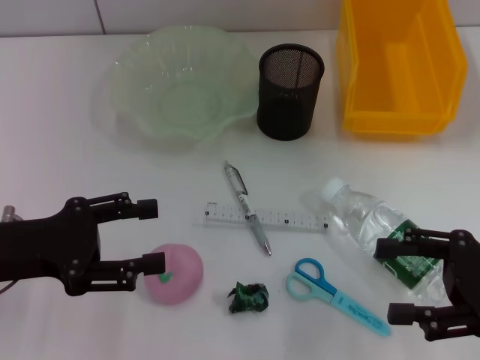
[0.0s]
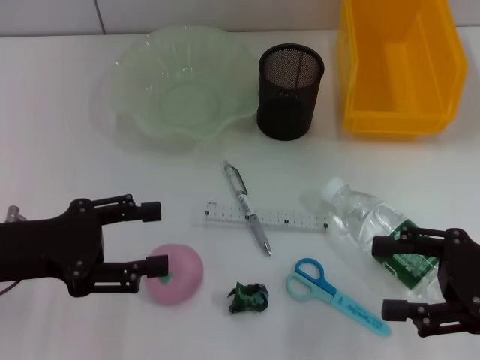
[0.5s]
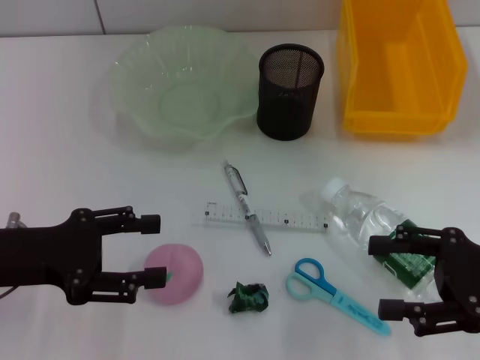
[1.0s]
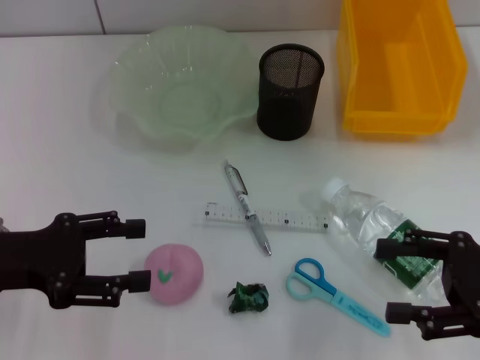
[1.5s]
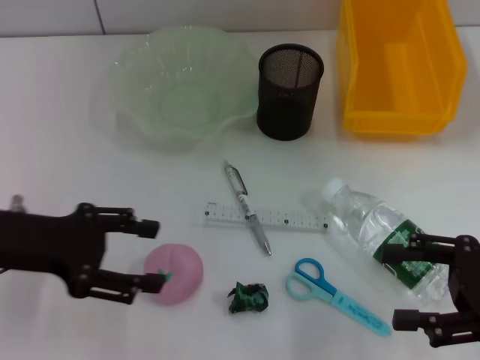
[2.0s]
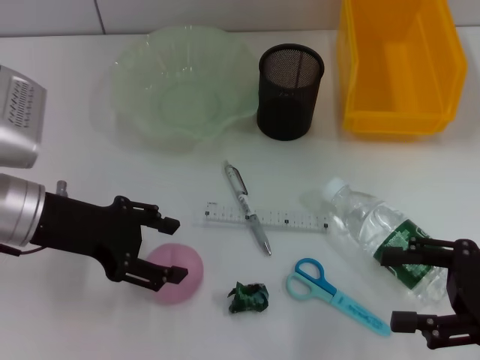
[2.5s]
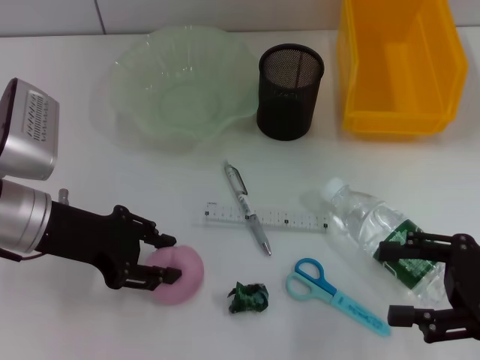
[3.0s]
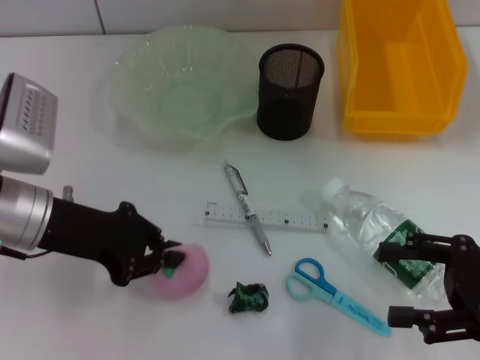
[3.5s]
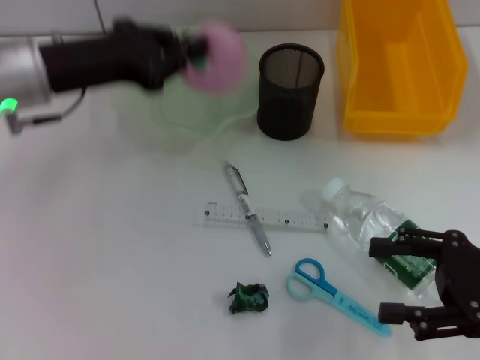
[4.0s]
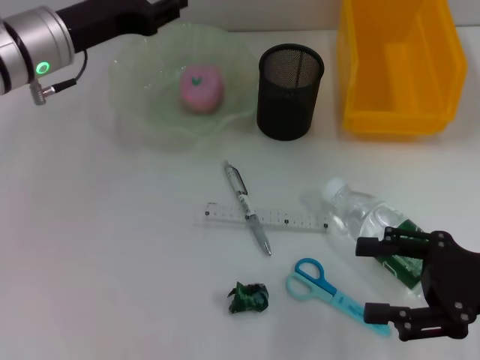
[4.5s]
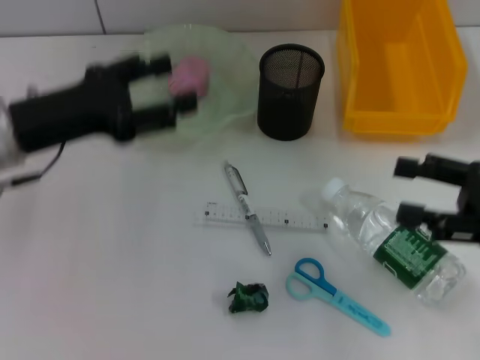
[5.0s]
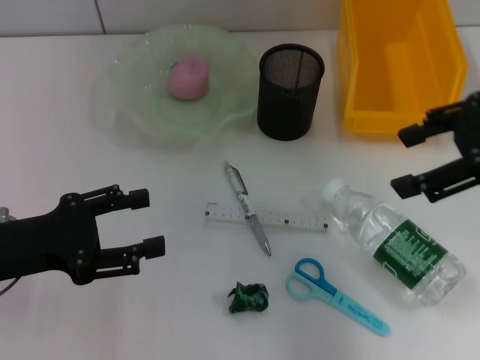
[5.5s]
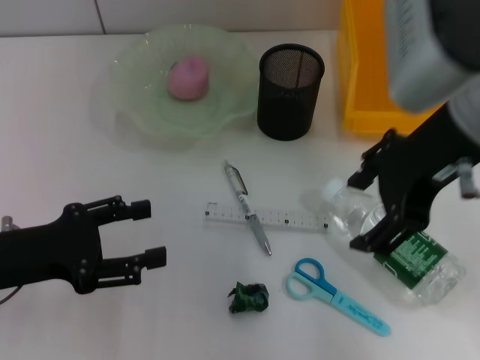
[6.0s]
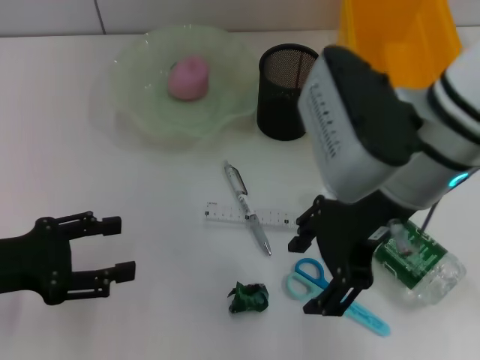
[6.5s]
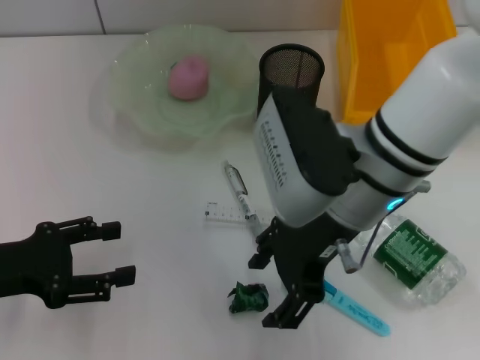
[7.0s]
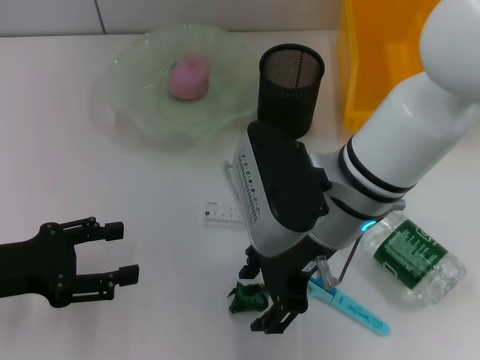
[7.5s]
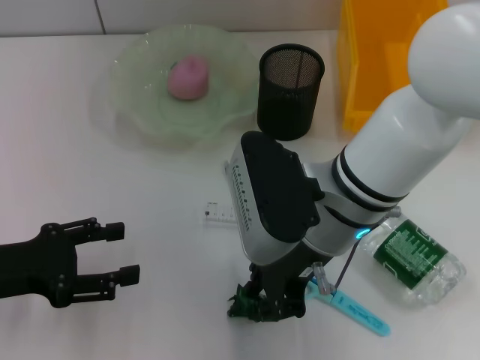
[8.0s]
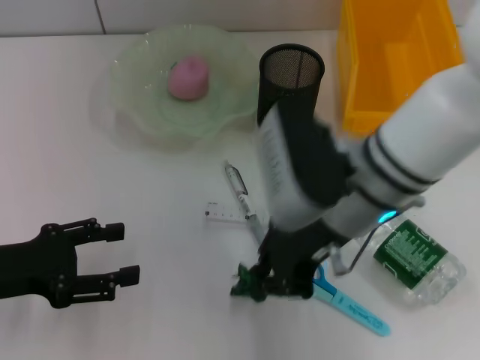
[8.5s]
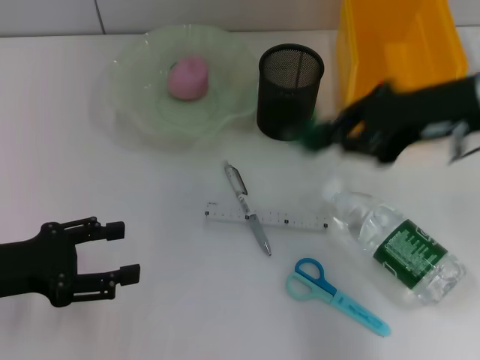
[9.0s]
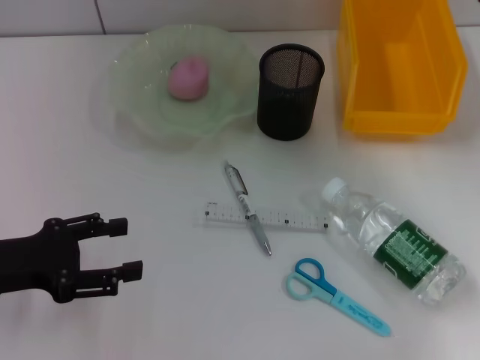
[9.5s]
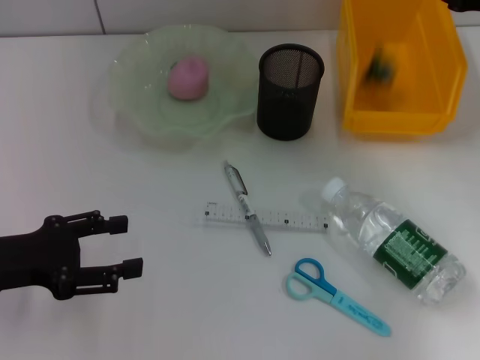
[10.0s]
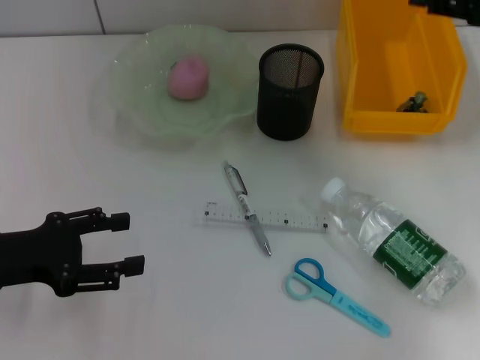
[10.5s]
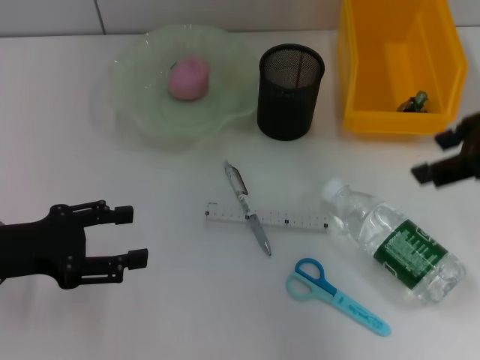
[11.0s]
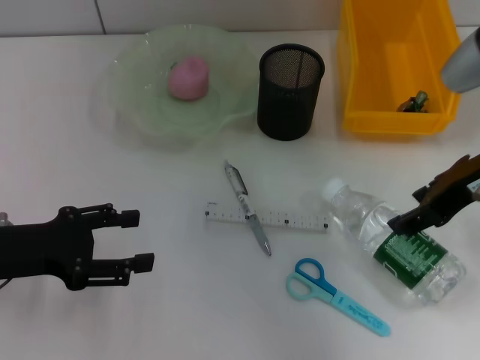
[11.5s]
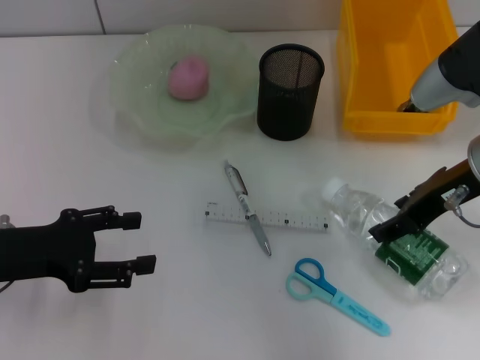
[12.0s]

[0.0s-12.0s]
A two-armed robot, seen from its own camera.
Step, 0.0s to 3.0s: Grab the peach with the left hand.
Step, 3.5s to 4.5s: Place the peach into the fruit bowl with the left hand.
Step, 5.0s to 8.0s: Grab the plastic with the right hand.
Step, 8.5s to 10.0s: Place the plastic into the trash can with the right hand.
0.0s to 2.0s: The grippers make only small movements.
2.0s to 4.0s: The left gripper is displaced forward and to the right by about 10 cm, and closes its fingers.
4.0s to 6.0s: The right gripper heads upward, to the left and forward, covering some 25 cm. Meanwhile the left gripper shifts about 15 cm backward, downward and to the left, and opens.
6.0s to 8.0s: The right gripper moves downward and to the left, approximately 15 cm, and closes up.
8.0s to 10.0s: The right gripper shifts approximately 25 cm to the right.
10.0s to 12.0s: The right gripper goes some 10 cm to the left and backward, and opens up.

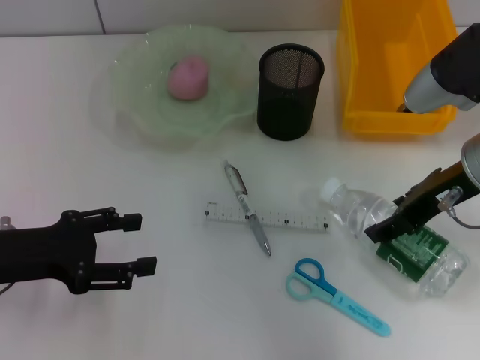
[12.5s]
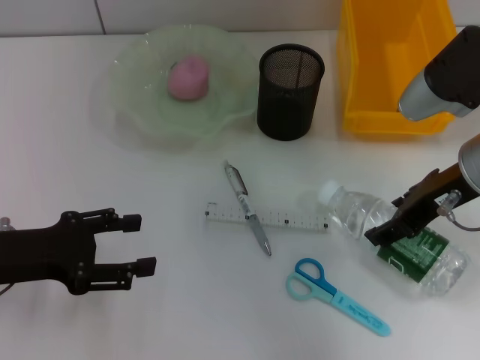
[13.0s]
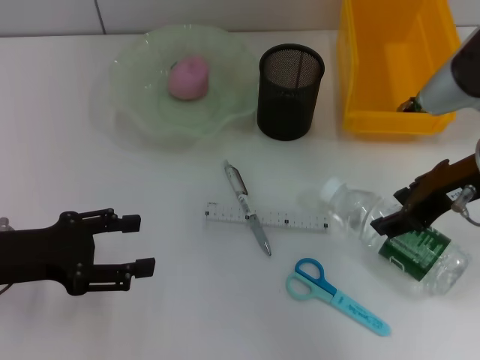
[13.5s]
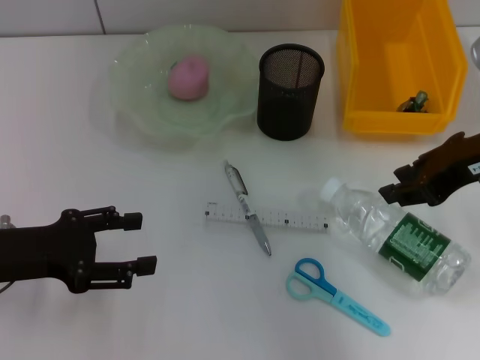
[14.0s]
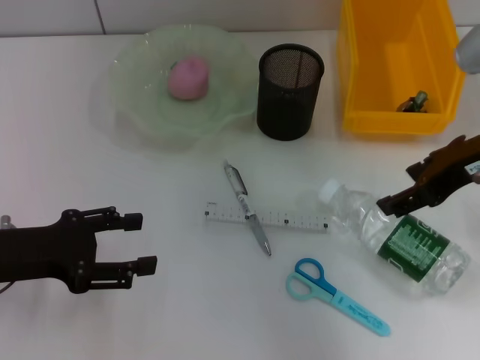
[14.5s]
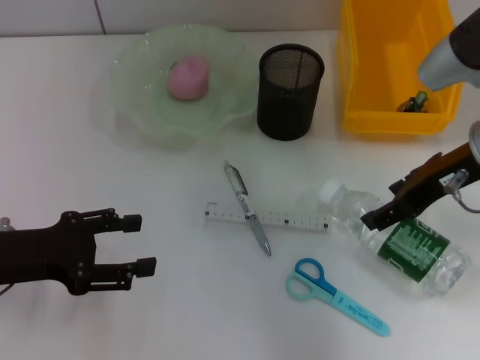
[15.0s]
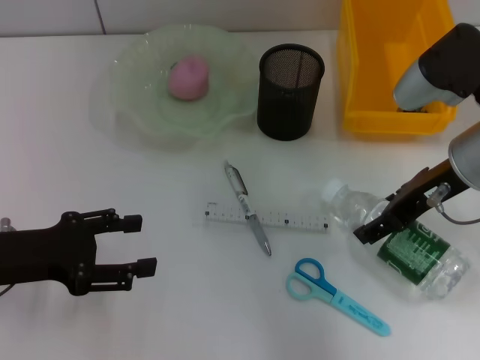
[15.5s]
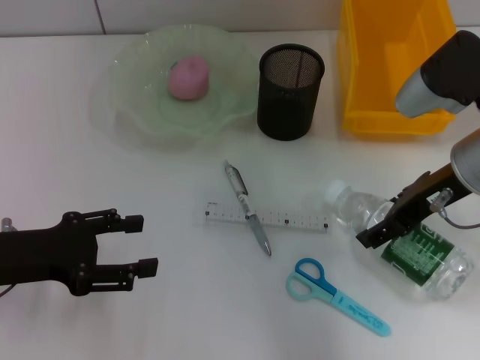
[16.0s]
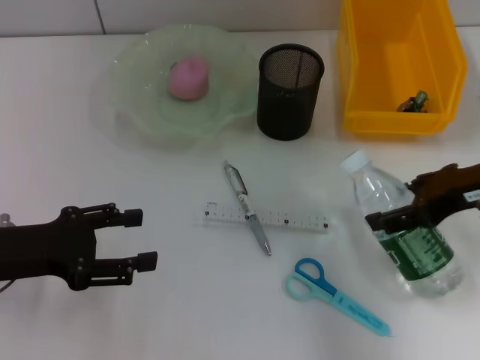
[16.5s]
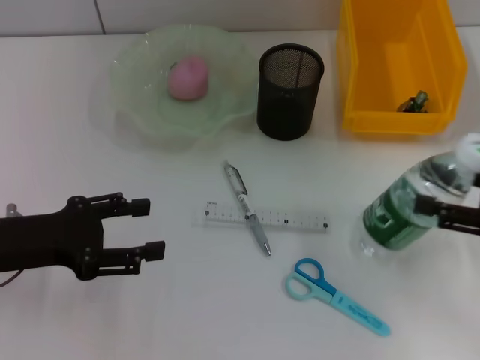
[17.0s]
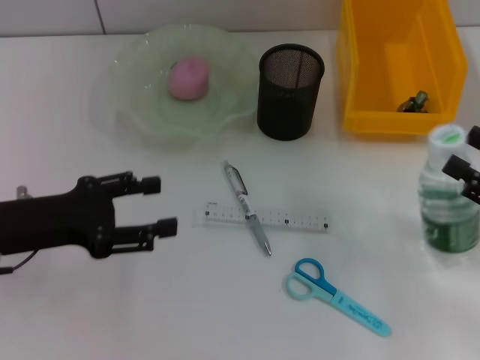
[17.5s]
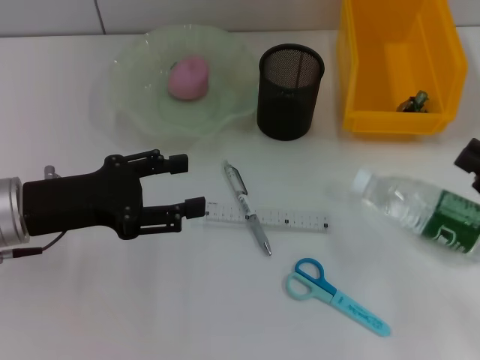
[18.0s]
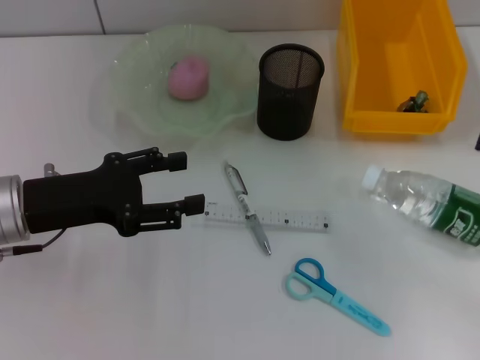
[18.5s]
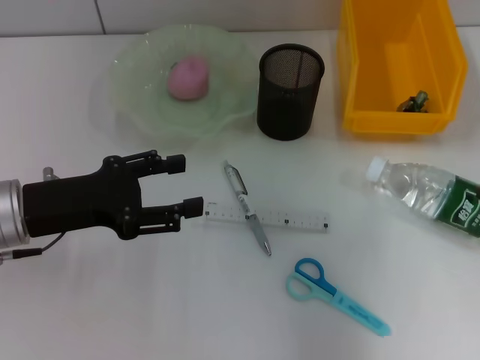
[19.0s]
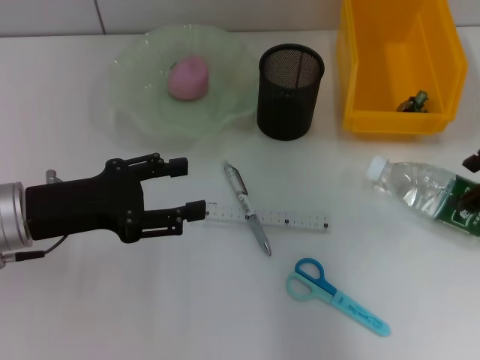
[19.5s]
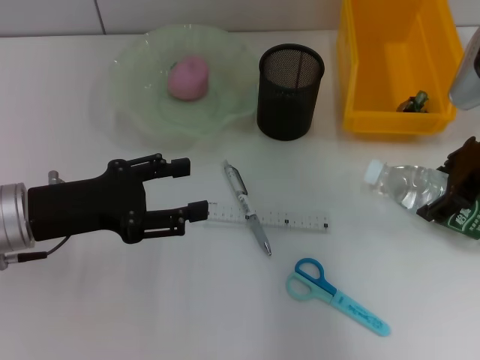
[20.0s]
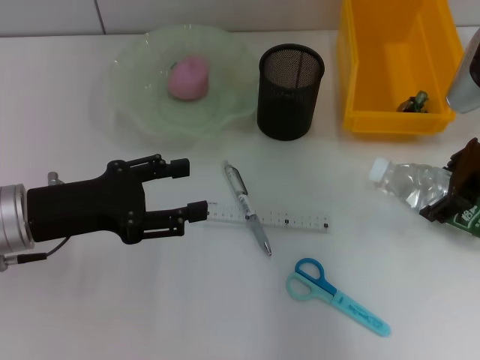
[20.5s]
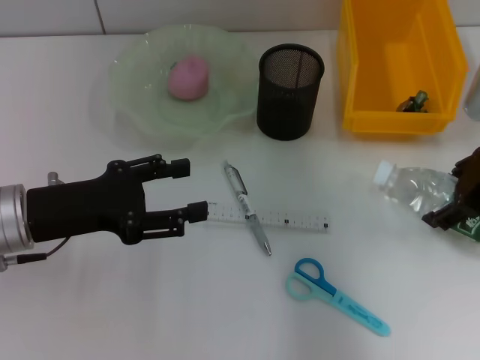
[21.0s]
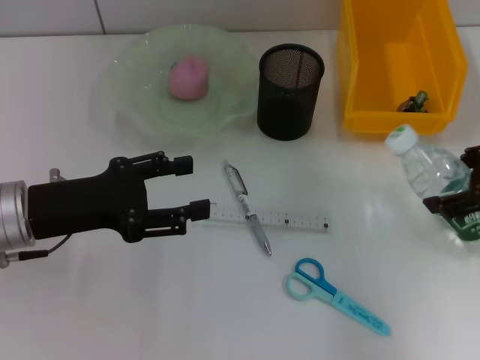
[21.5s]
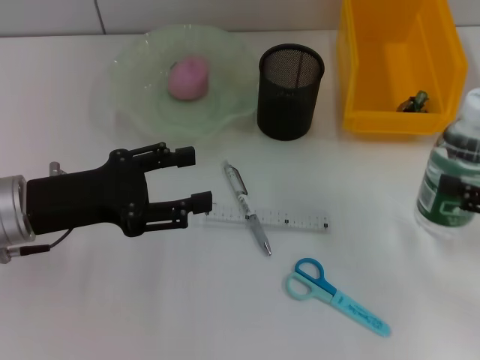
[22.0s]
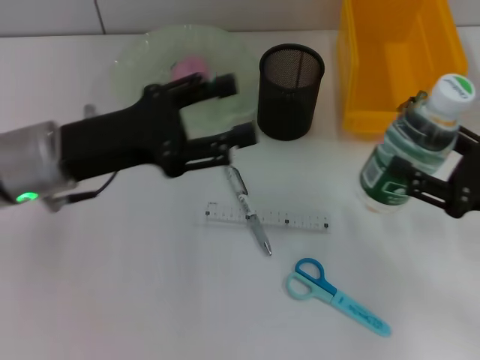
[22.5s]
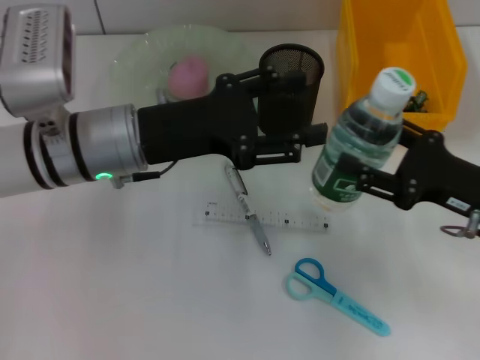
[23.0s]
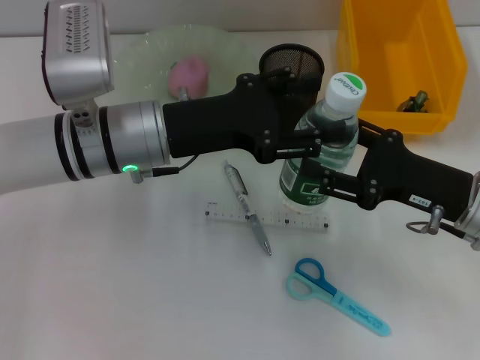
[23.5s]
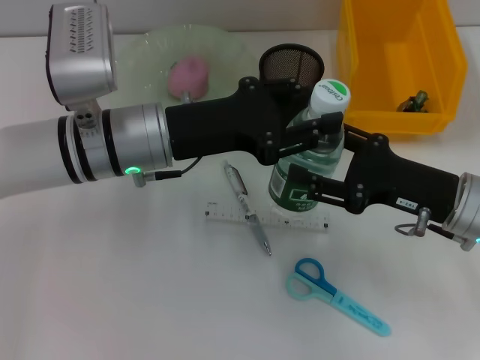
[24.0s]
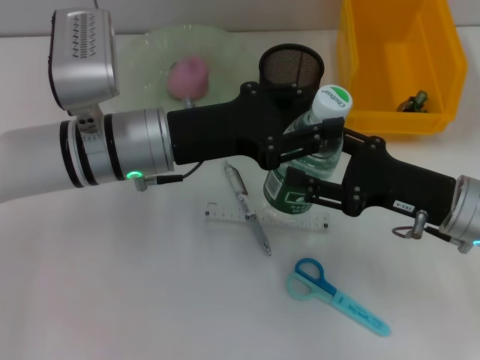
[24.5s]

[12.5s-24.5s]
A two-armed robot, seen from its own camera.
Step, 12.5s to 15.5s: Grab the water bottle with the right hand.
12.5s to 14.5s: The right gripper closes, then opens again.
14.5s to 16.5s: The right gripper shifts by about 5 cm.
16.5s to 18.5s: The left gripper moves roughly 5 cm. Meanwhile the right gripper heads to the right, covering roughly 10 cm, and closes its fingers.
18.5s to 20.5s: The right gripper heads forward and to the left, covering about 15 cm, and opens up.
20.5s to 22.5s: The left gripper moves some 5 cm, while the right gripper goes some 15 cm backward and downward.
22.5s to 24.5s: The right gripper travels to the left by approximately 10 cm, while the left gripper travels to the right by about 10 cm, and closes its fingers.

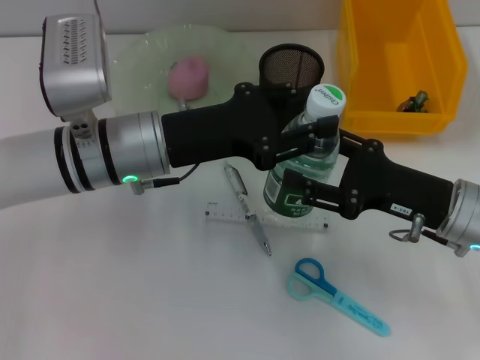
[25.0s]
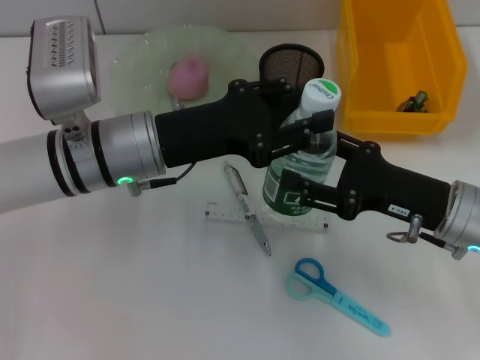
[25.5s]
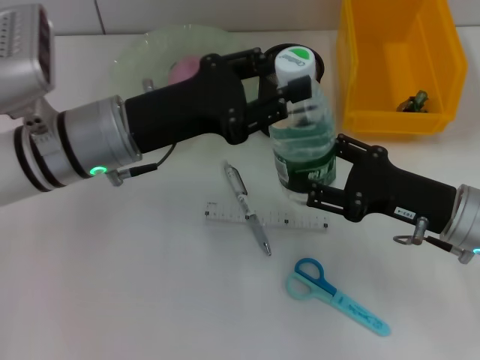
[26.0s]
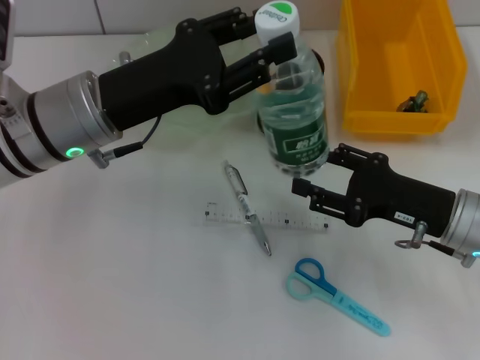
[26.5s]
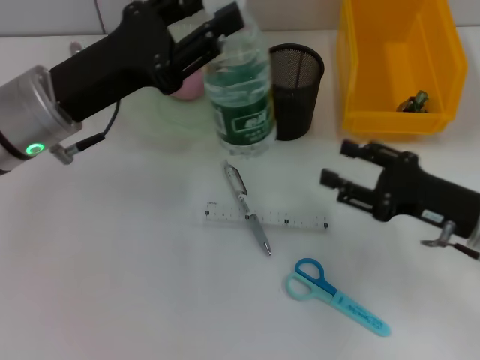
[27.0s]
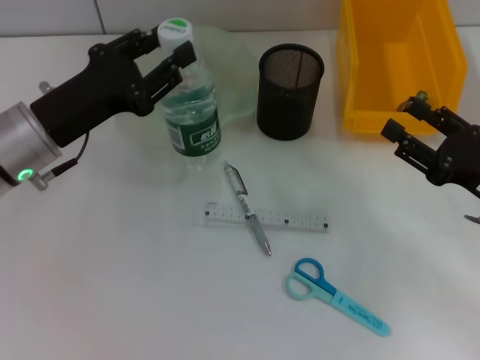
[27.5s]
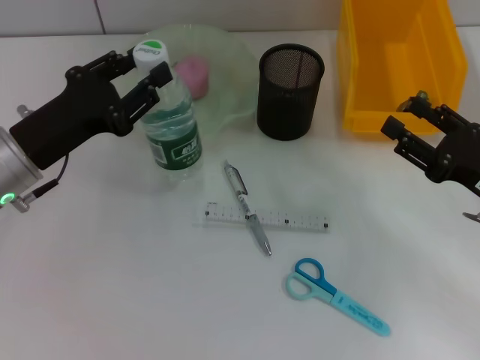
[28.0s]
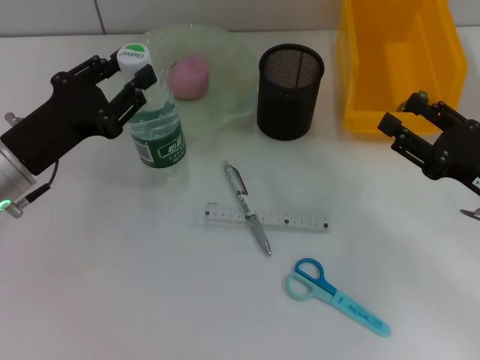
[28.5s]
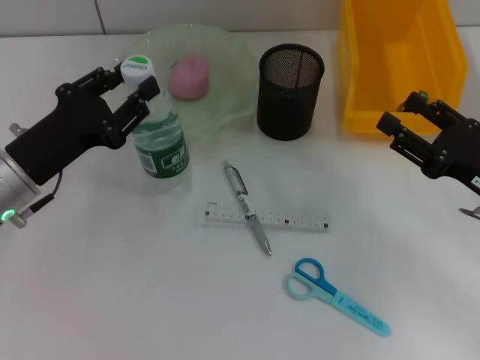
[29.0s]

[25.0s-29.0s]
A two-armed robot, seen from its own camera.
25.0s to 27.0s: The left gripper heads to the left, covering some 5 cm.
27.0s to 29.0s: The left gripper moves downward, about 5 cm.
